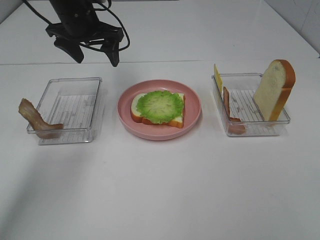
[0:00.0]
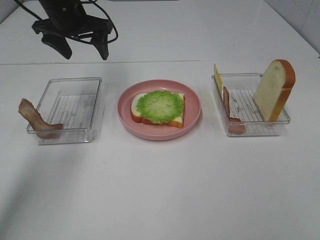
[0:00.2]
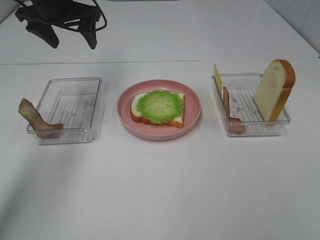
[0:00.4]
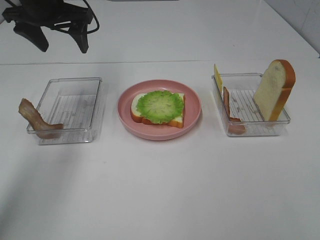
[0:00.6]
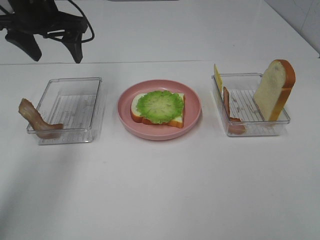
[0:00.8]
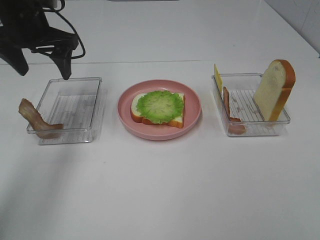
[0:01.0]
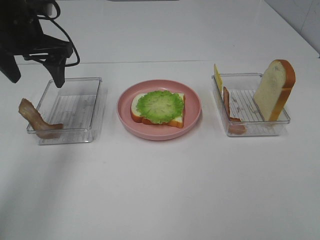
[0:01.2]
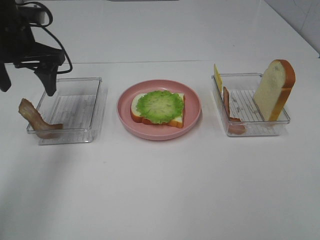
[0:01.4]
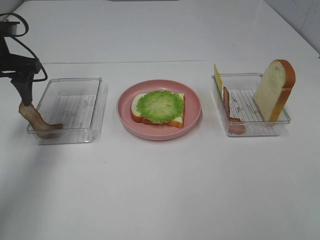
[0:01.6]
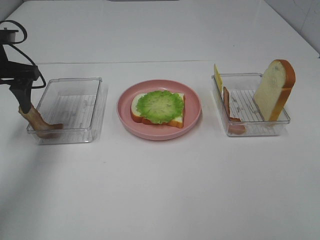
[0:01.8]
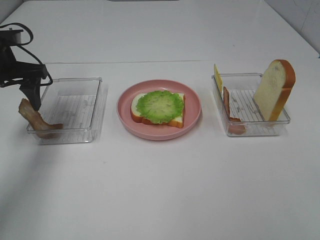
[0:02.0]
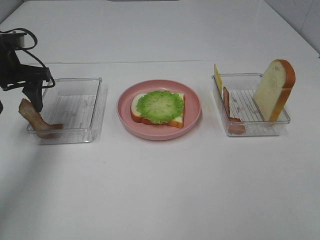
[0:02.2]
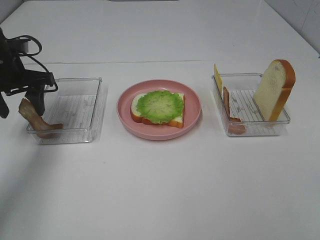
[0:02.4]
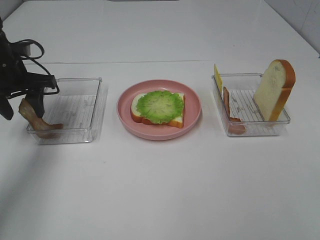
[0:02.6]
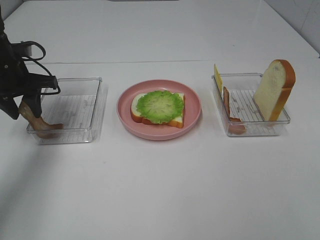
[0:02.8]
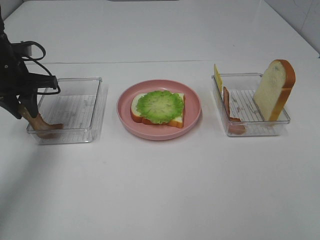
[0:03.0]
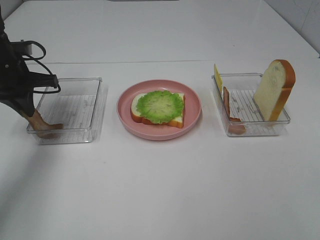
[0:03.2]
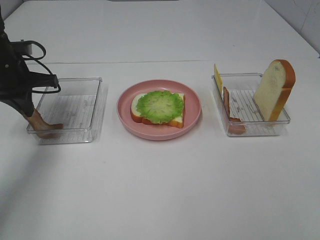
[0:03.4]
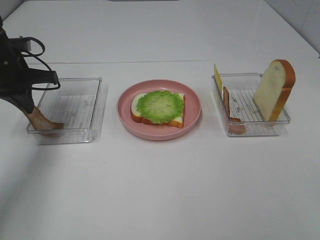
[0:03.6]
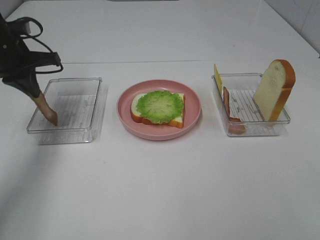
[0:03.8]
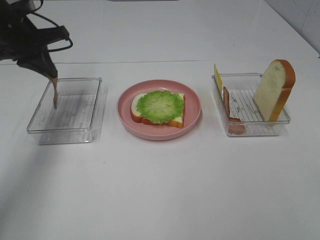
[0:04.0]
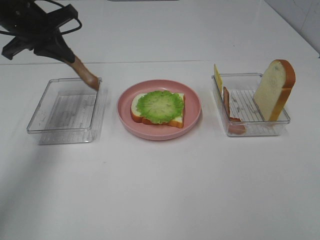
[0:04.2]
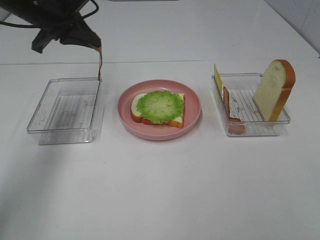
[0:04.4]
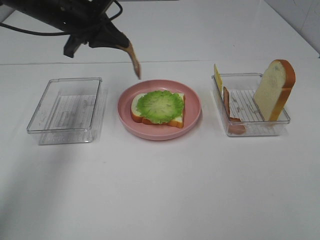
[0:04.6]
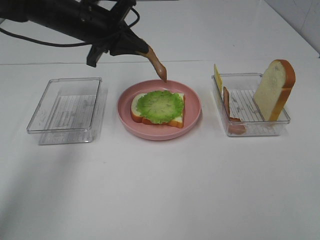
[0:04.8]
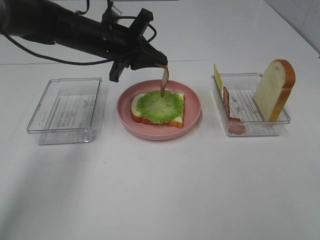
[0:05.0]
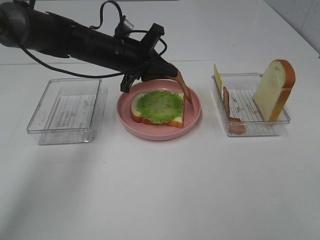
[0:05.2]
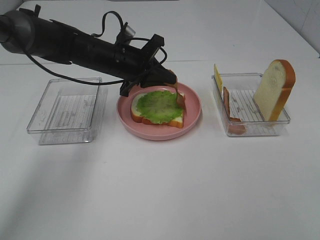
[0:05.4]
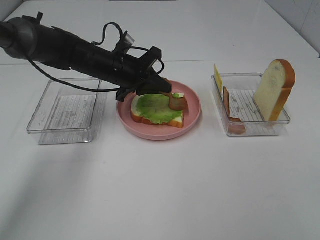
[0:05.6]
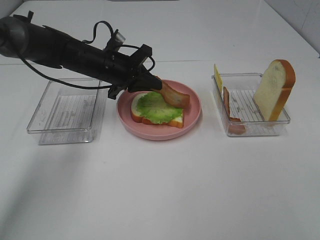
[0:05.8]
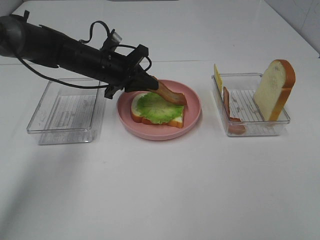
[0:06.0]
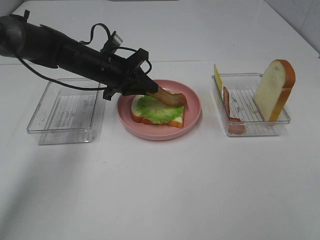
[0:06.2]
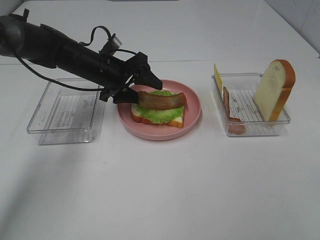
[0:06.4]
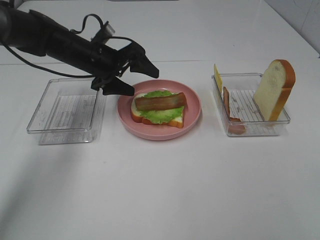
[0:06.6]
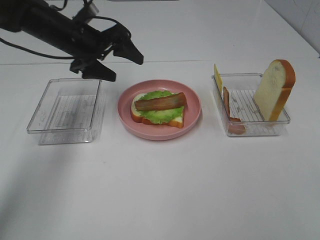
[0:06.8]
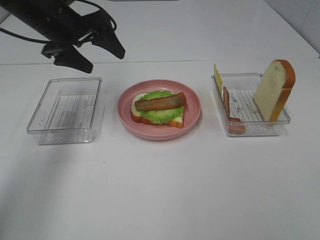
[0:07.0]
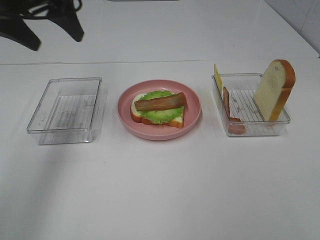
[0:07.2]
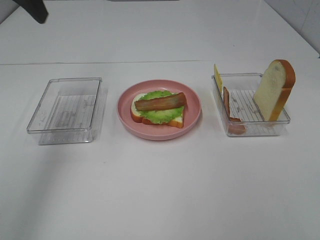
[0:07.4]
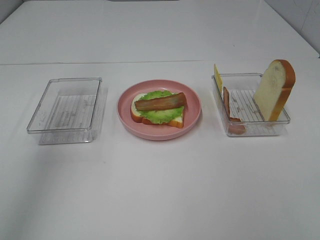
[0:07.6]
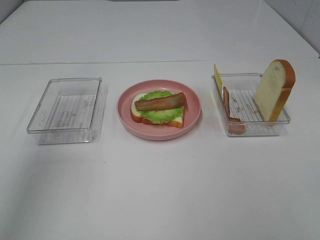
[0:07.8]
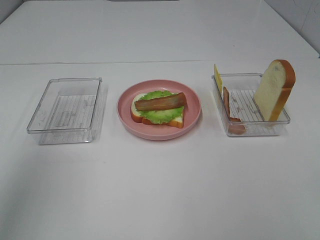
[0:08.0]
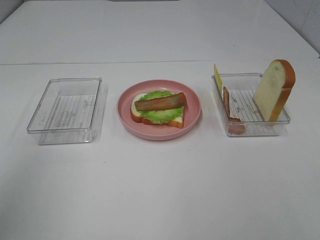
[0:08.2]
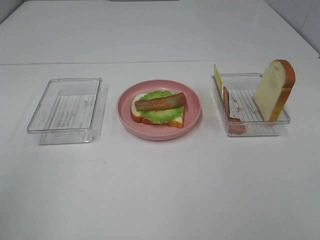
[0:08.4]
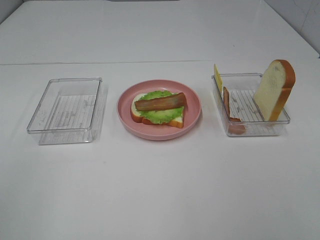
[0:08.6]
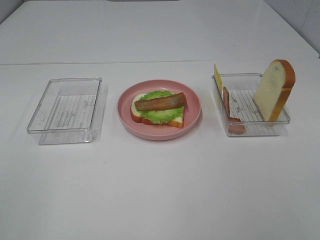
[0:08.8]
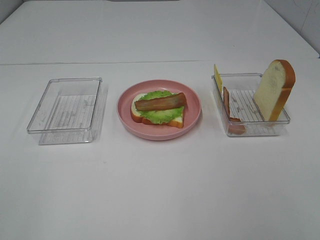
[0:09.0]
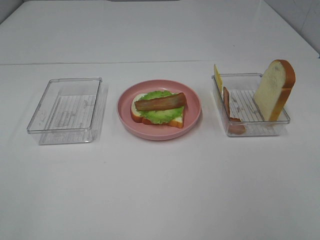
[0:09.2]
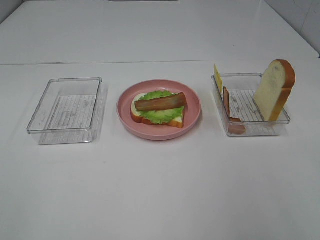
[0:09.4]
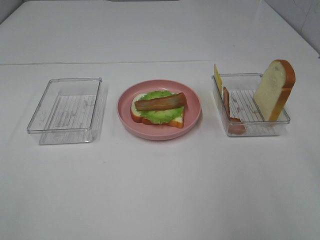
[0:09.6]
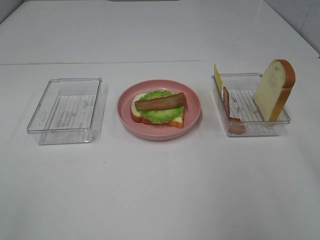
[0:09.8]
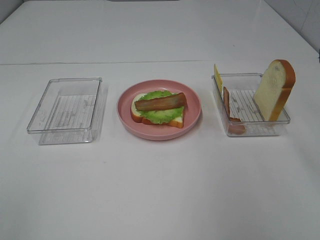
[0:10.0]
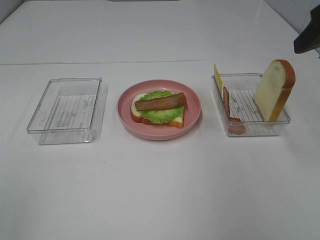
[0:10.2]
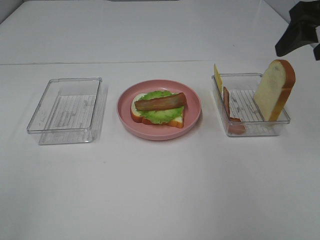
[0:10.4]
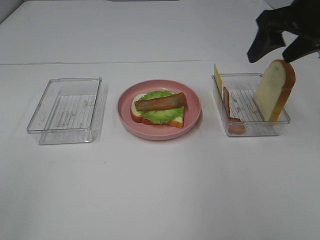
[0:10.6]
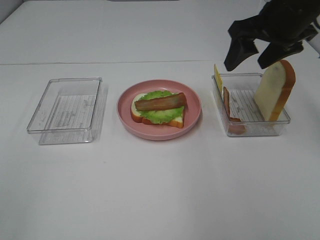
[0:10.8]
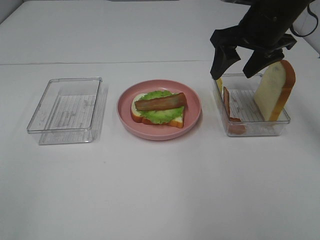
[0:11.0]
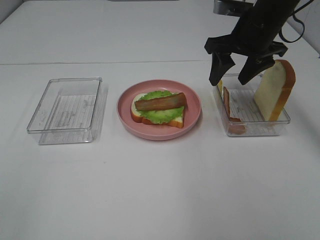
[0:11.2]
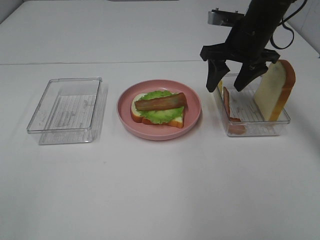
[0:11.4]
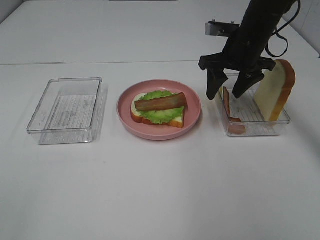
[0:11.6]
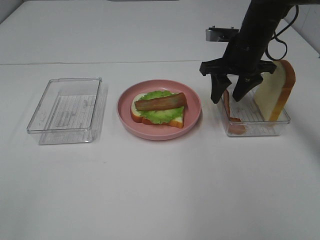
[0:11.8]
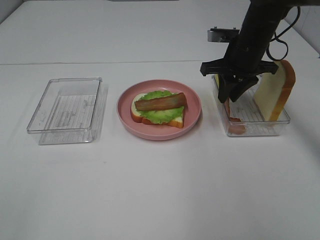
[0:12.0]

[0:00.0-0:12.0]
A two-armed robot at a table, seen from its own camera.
Task of the whole recording: Make sandwiches.
Step, 0:00.0 to 0:03.2: Left hand:grab the bacon.
Step, 0:03.4 to 0:06.6: Left hand:place bacon on lettuce slice.
0:00.0 to 0:01.6: The left gripper shifts roughly 15 cm to the left and backward.
0:01.6 to 0:03.0: The left gripper shifts about 5 cm downward, and closes its fingers.
0:03.0 to 0:04.4: The left gripper is displaced upward and to the right by some 10 cm, and closes its fingers.
0:04.4 to 0:06.0: The left gripper travels downward and to the right by approximately 15 cm.
0:06.0 to 0:07.6: The left gripper moves upward, backward and to the left, some 35 cm, and opens up.
0:07.6 to 0:09.0: The left gripper is displaced backward by about 30 cm.
0:09.0 to 0:10.4: The right gripper shifts some 30 cm forward.
0:10.4 to 0:12.0: The right gripper heads downward, forward and to the left, covering some 20 cm, and closes.

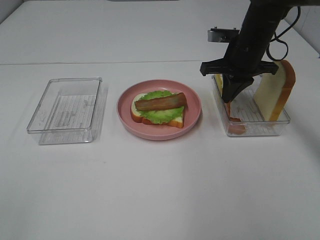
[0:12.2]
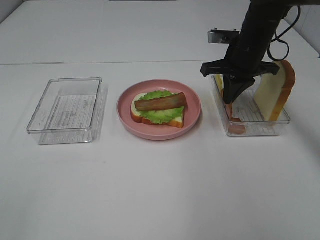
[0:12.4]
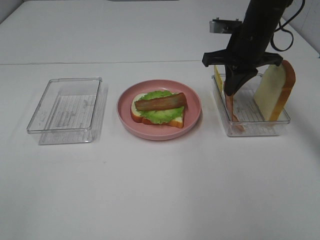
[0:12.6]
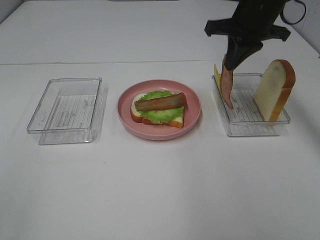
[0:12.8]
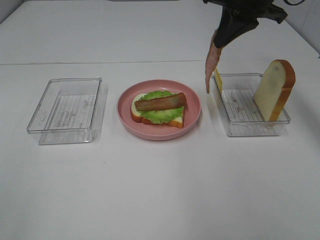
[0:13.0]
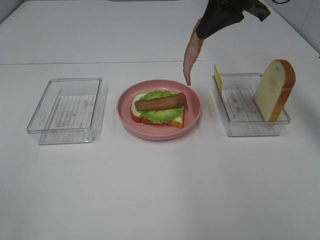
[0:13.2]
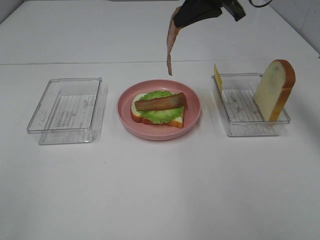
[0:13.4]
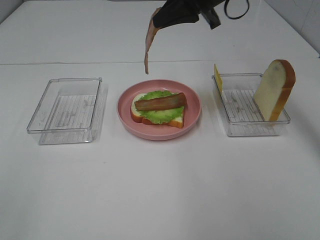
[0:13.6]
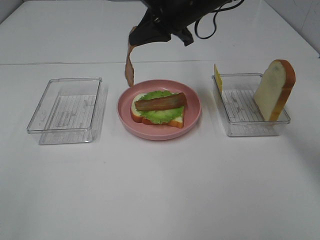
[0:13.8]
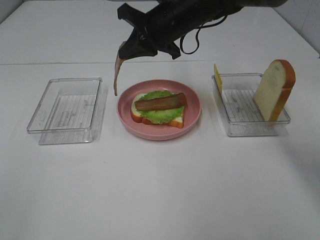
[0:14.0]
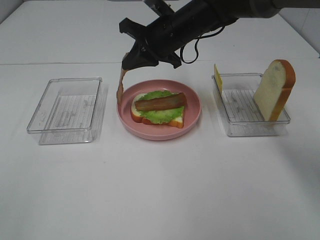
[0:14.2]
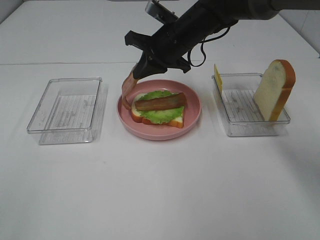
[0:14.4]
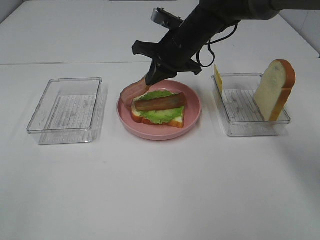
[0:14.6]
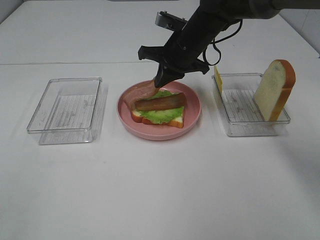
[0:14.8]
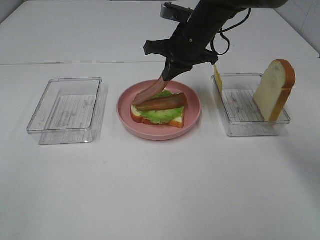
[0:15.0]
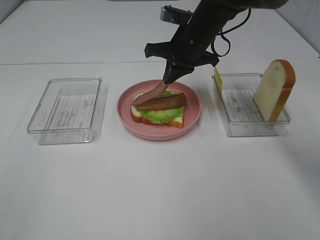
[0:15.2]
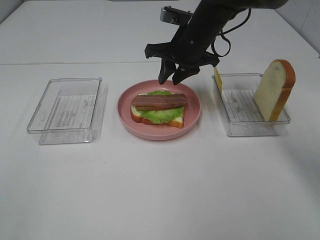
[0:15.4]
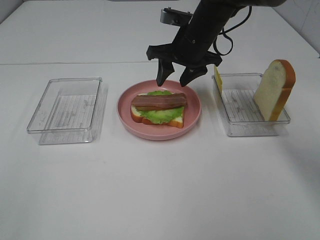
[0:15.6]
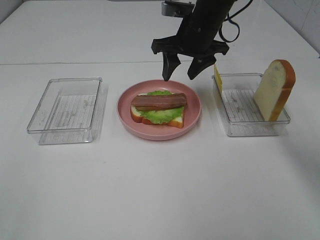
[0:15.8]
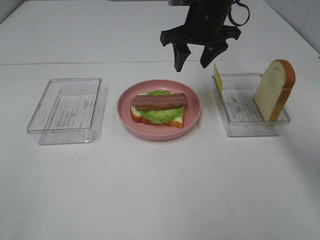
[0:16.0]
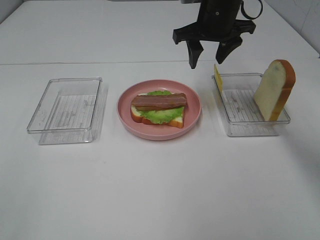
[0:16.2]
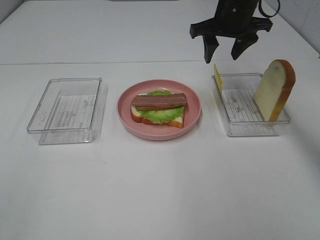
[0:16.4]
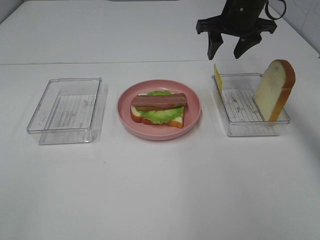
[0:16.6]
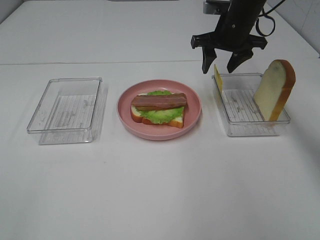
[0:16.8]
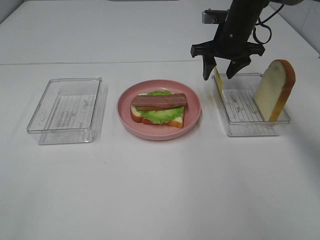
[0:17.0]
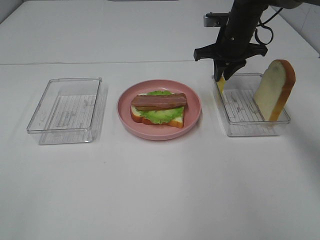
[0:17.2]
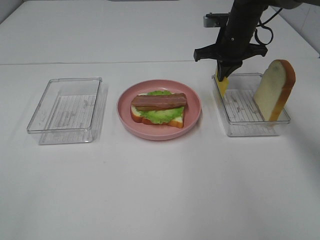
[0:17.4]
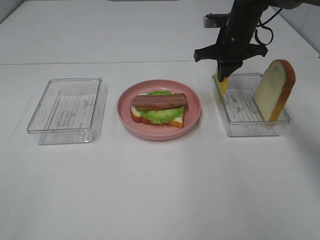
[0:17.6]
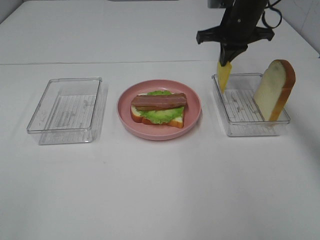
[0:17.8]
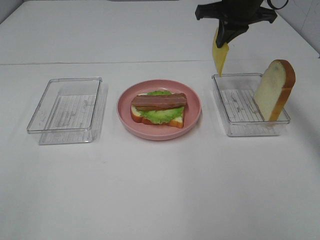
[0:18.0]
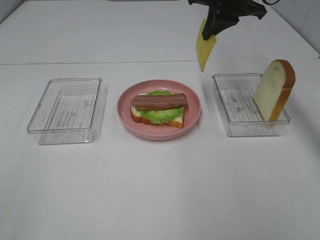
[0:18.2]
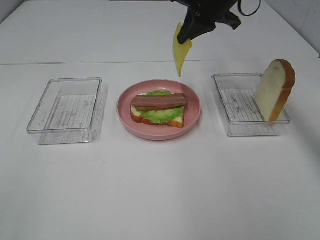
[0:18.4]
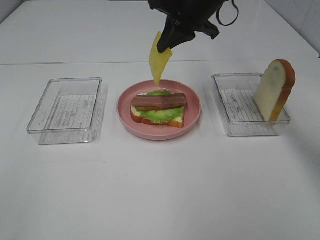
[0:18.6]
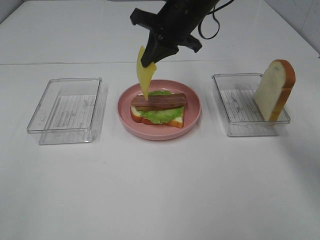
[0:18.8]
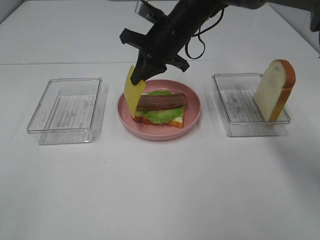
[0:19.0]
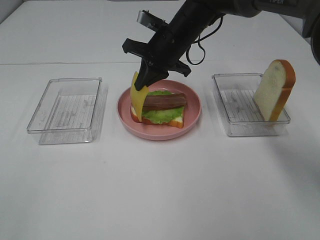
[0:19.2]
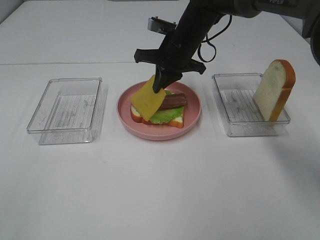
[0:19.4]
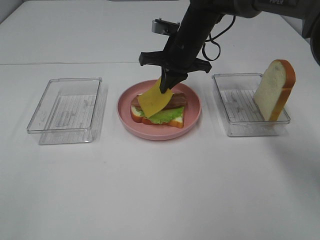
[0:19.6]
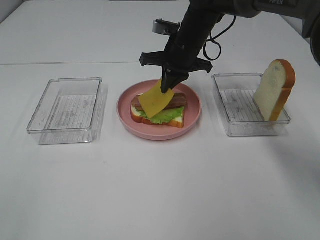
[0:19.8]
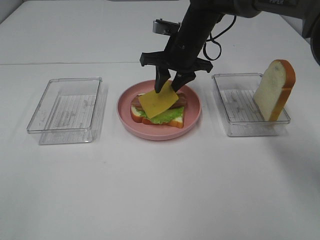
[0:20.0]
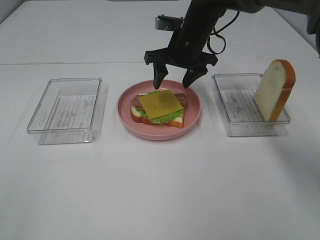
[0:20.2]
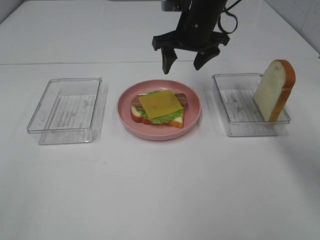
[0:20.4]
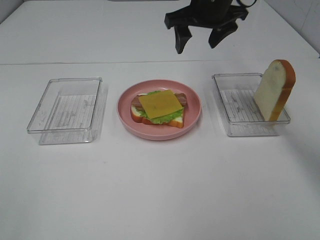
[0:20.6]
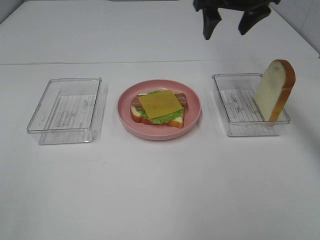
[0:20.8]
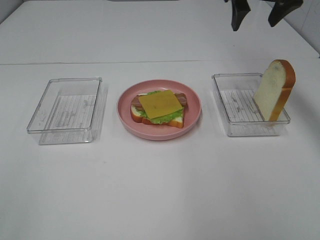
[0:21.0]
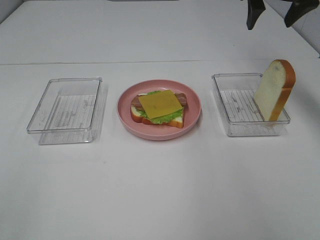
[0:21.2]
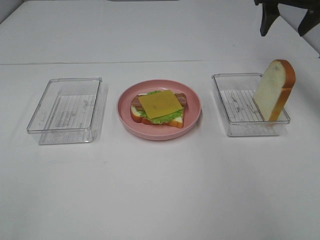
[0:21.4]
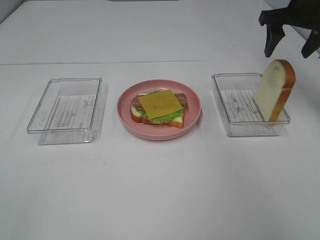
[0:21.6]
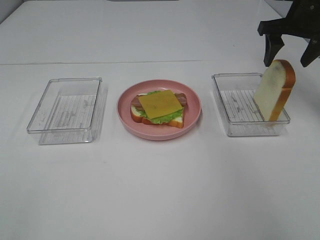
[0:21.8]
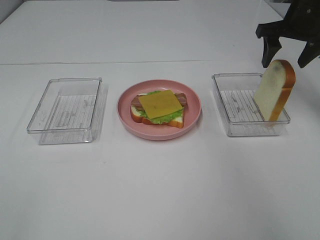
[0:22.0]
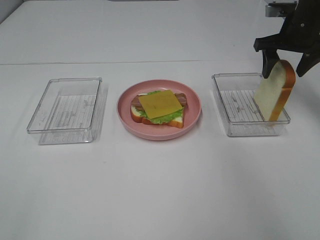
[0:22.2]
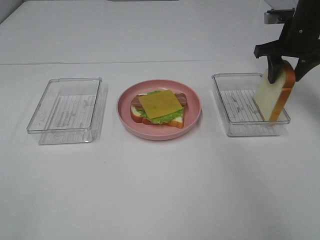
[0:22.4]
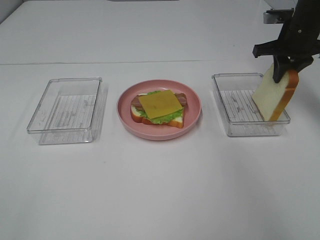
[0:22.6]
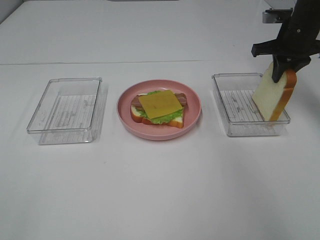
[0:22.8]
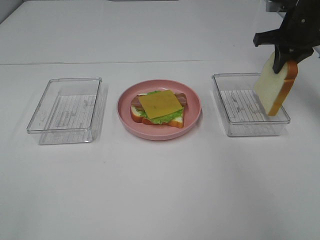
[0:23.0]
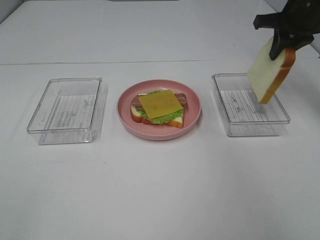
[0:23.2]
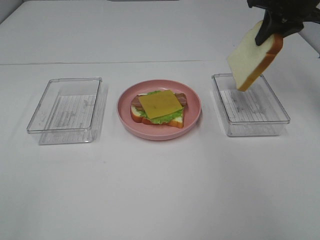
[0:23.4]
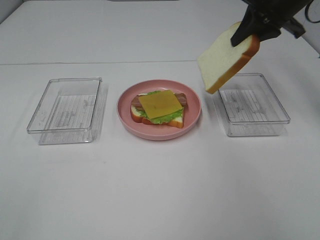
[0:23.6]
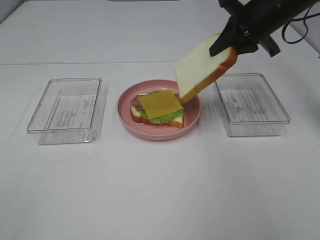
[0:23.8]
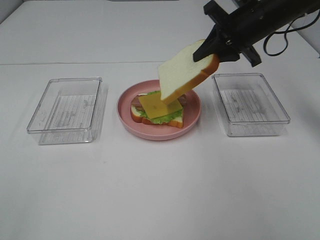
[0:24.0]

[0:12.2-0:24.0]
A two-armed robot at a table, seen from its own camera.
Task of the whole recording: Make sandwiches.
Step, 0:12.2 to 0:15.6: Right hand:place bacon on bacon.
Step, 0:15.8 to 0:17.6: Right hand:grab the cheese slice.
Step, 0:17.8 to 0:20.2: Right hand:place the cheese slice on top of the bacon.
Step, 0:20.4 to 0:22.6: Right hand:grab the bread slice.
0:12.2 to 0:13.6: The right gripper travels upward and to the left by about 15 cm.
0:13.6 to 0:15.2: The right gripper heads downward, covering some 10 cm.
0:15.2 to 0:16.6: The right gripper goes about 10 cm to the right, and opens.
0:16.6 to 0:18.2: The right gripper ends up roughly 5 cm from where it was, and closes.
0:18.2 to 0:19.6: The right gripper shifts some 15 cm downward and to the left.
0:19.6 to 0:21.0: The right gripper heads upward and to the right, covering some 20 cm, and opens its fingers.
0:21.0 to 0:22.6: The right gripper goes about 15 cm downward and to the right, and closes up.
0:22.6 to 0:24.0: The right gripper travels to the left by approximately 10 cm.
